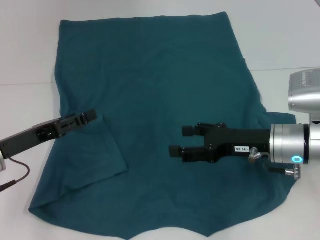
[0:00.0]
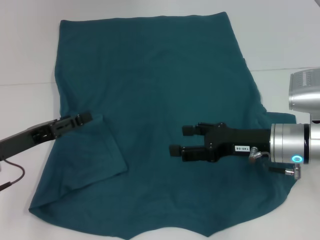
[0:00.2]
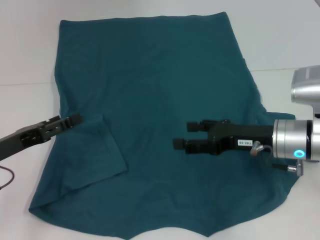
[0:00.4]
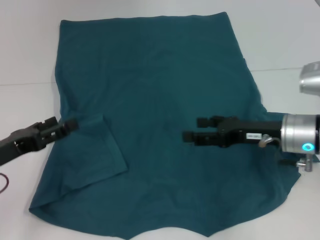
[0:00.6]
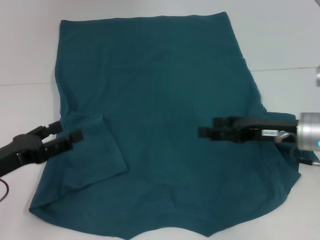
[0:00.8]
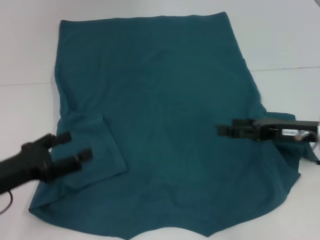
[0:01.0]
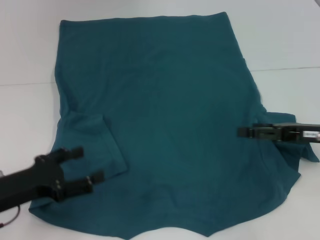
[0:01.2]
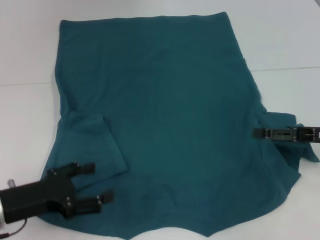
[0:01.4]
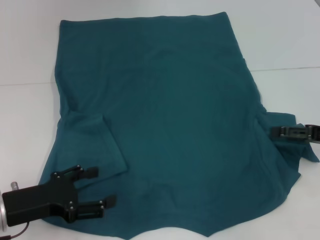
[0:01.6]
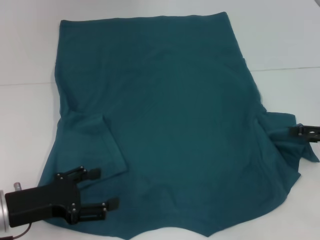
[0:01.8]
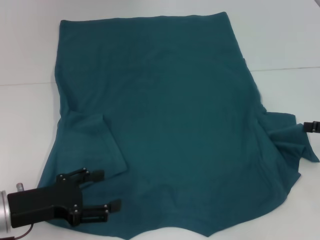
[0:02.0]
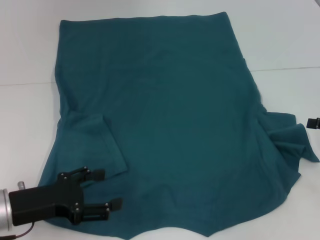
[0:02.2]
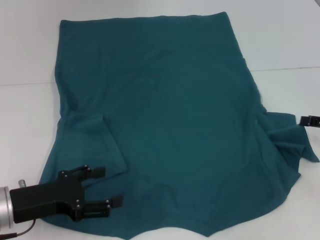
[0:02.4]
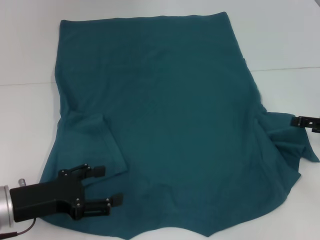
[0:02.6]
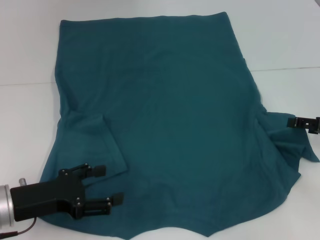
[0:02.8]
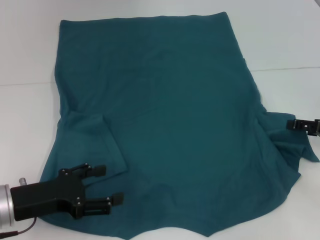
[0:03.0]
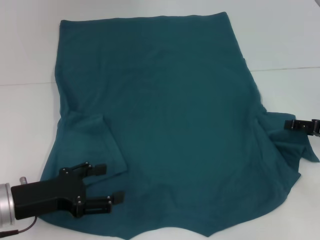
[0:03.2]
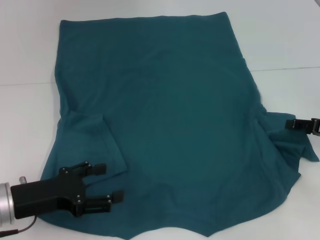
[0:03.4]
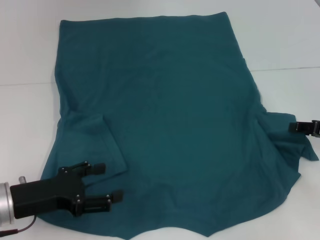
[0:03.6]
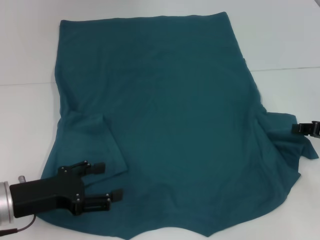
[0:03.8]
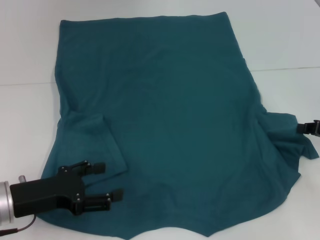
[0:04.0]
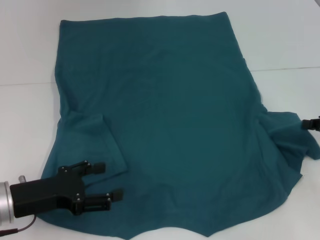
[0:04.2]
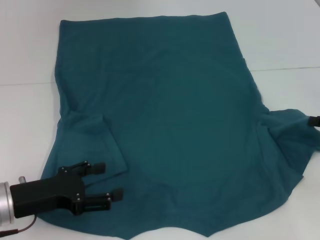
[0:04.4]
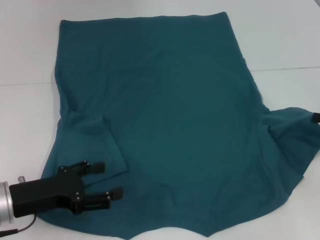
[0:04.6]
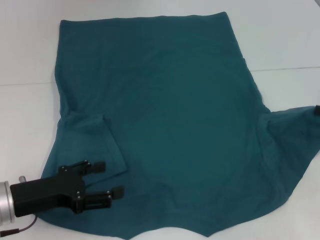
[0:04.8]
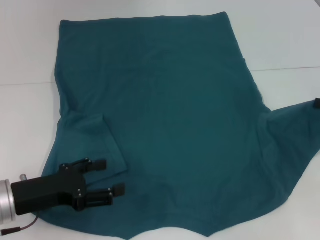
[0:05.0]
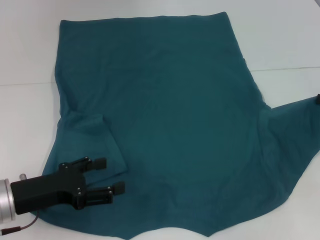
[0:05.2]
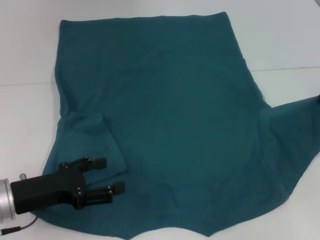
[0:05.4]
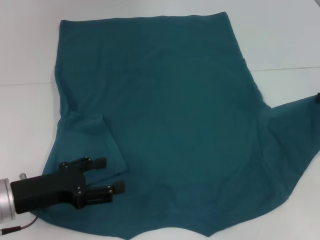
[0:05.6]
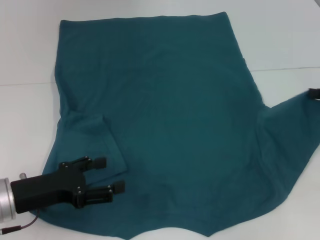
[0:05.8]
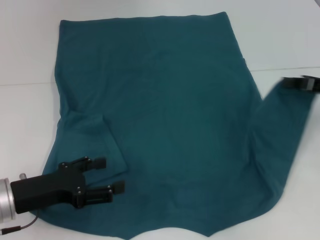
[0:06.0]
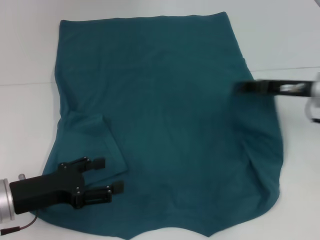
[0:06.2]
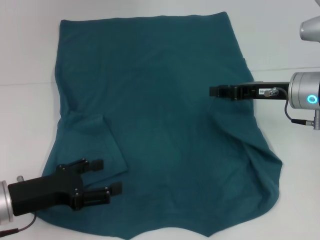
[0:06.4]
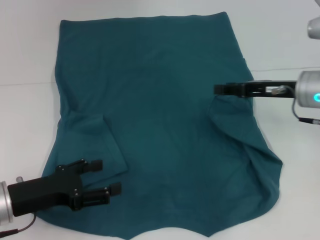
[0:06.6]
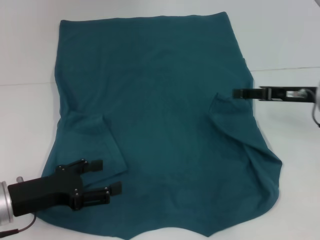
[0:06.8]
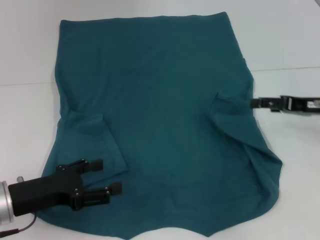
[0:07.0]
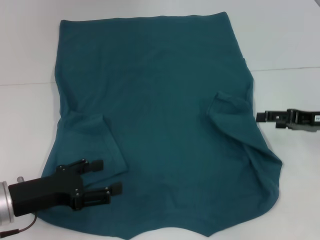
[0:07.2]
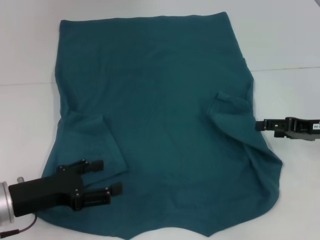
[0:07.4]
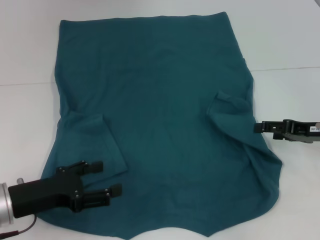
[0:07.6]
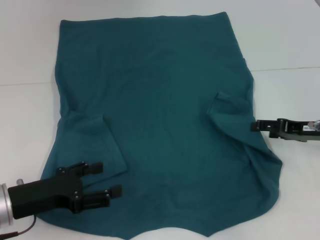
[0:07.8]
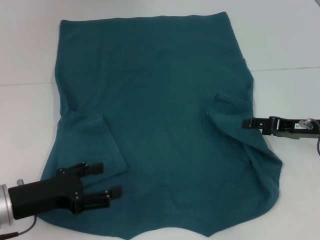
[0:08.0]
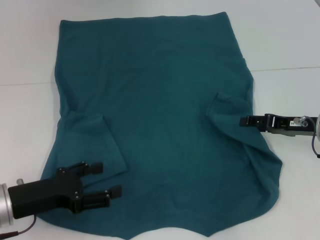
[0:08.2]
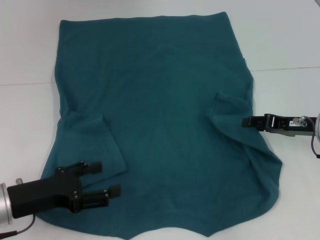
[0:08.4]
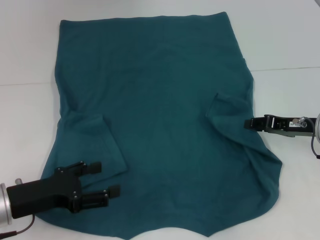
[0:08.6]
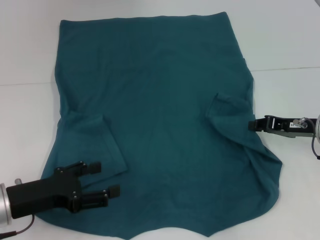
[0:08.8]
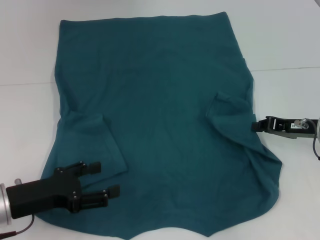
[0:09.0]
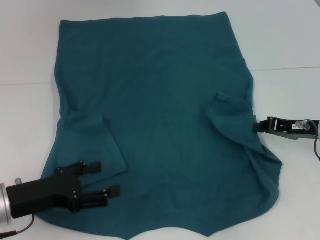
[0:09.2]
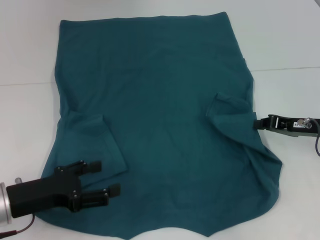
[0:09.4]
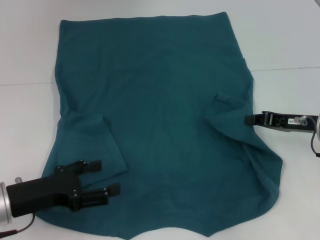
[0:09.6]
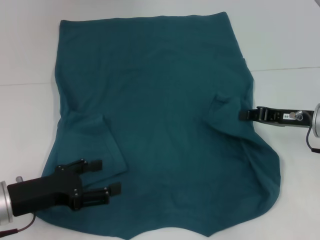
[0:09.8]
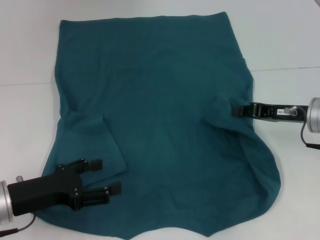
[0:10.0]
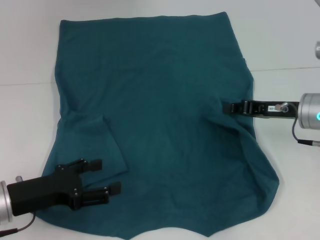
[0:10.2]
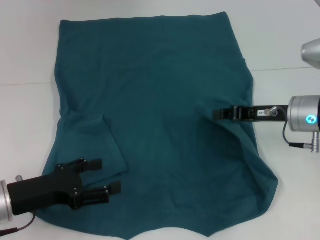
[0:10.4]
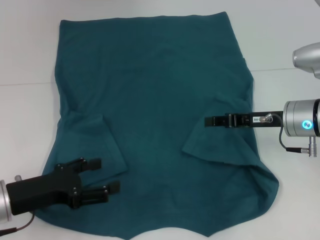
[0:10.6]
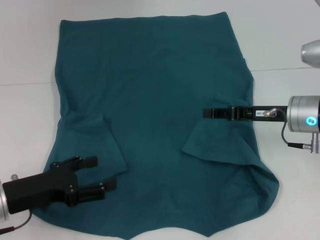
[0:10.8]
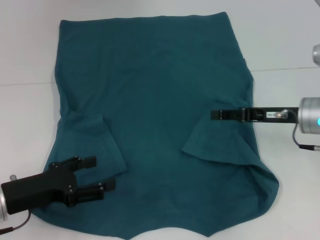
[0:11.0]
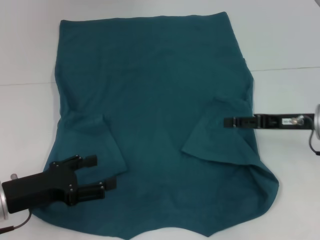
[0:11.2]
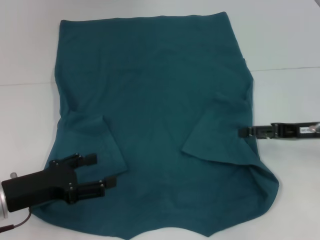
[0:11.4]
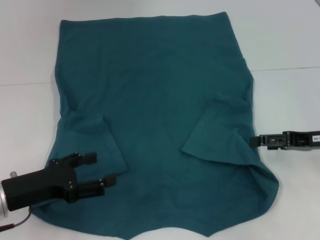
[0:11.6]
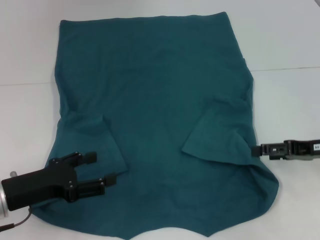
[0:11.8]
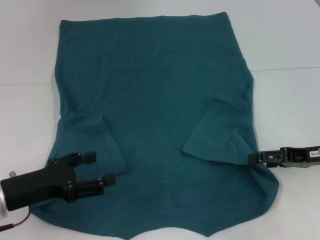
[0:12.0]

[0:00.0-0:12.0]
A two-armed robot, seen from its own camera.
Step, 0:00.2 to 0:10.6: Fold the bottom right sleeve to the right.
0:00.0 to 0:01.6: The right gripper shifts approximately 15 cm to the right, while the left gripper goes about 5 cm backward.
0:01.6 to 0:03.0: There are only small adjustments of the grippers.
0:03.0 to 0:04.4: The right gripper closes up.
0:04.4 to 0:06.0: The right gripper shifts by roughly 5 cm.
0:06.0 to 0:07.6: The right gripper moves some 10 cm to the left and comes back, and opens its fingers.
0:07.6 to 0:09.0: The right gripper closes its fingers.
0:09.0 to 0:10.4: The right gripper travels to the left by roughly 5 cm.
0:10.4 to 0:12.0: The right gripper moves to the right and backward, roughly 10 cm, and opens up.

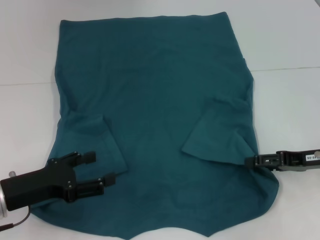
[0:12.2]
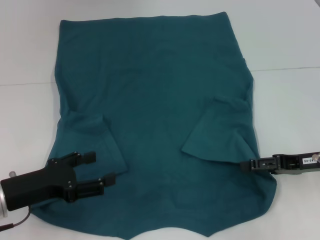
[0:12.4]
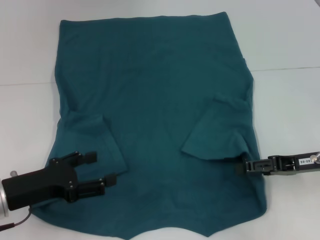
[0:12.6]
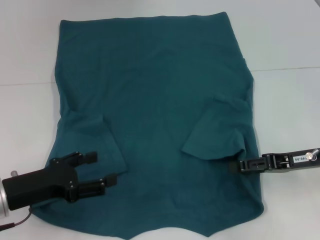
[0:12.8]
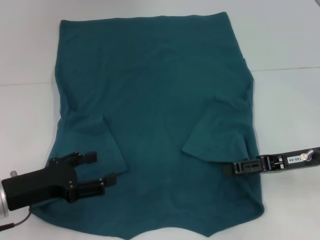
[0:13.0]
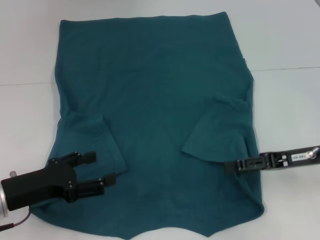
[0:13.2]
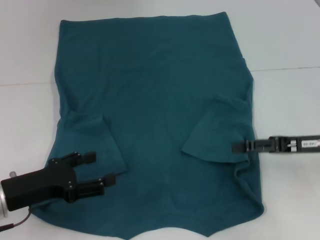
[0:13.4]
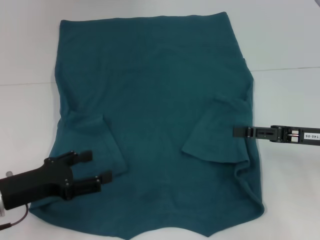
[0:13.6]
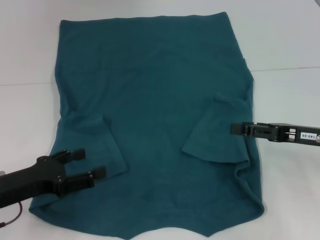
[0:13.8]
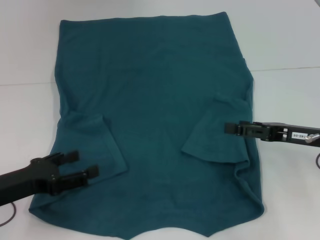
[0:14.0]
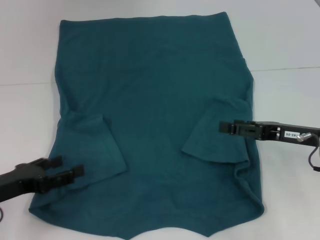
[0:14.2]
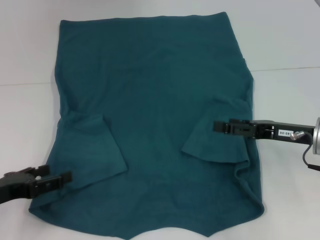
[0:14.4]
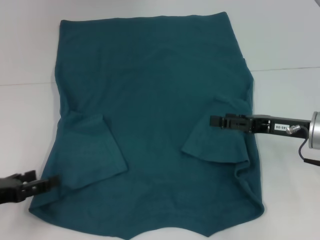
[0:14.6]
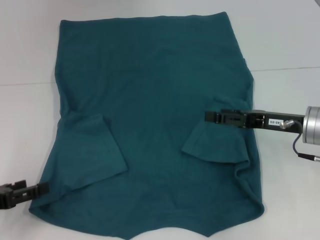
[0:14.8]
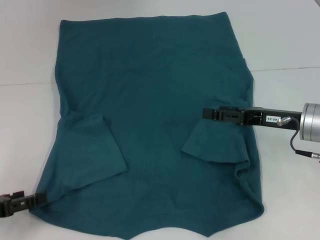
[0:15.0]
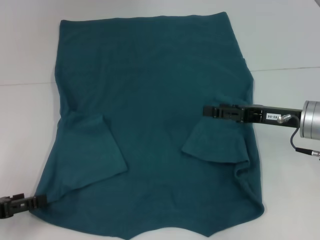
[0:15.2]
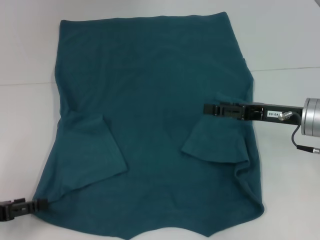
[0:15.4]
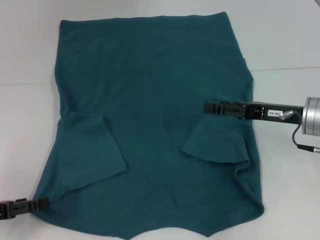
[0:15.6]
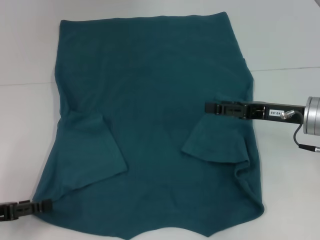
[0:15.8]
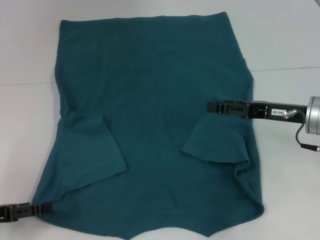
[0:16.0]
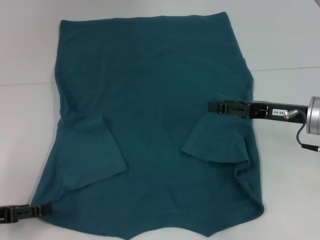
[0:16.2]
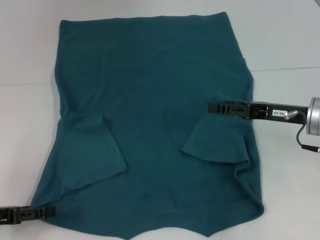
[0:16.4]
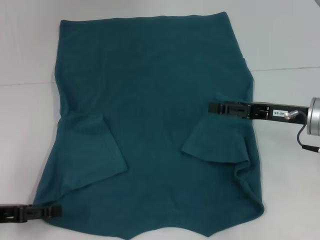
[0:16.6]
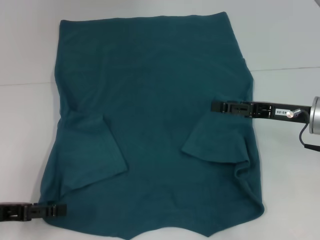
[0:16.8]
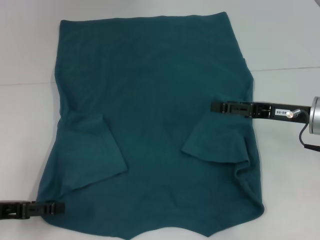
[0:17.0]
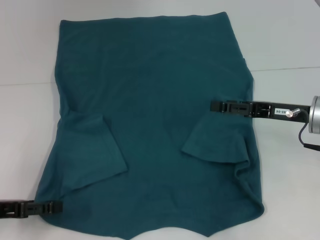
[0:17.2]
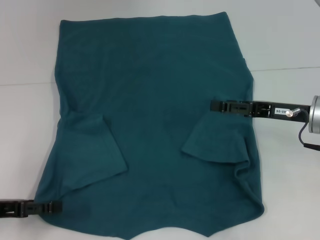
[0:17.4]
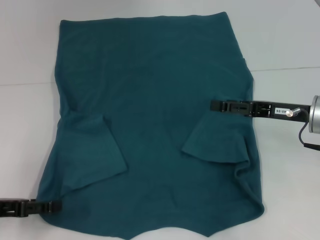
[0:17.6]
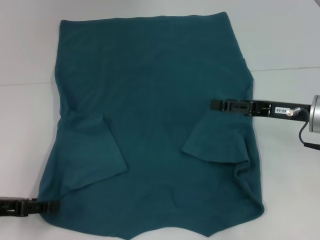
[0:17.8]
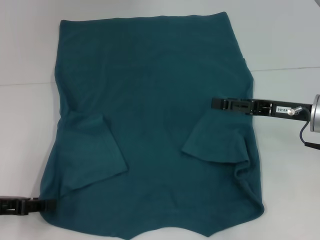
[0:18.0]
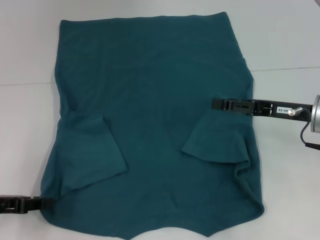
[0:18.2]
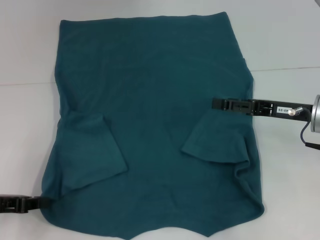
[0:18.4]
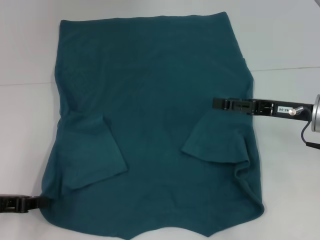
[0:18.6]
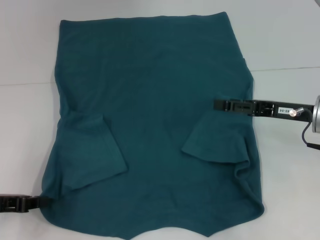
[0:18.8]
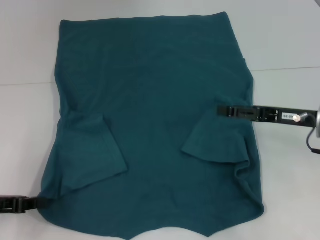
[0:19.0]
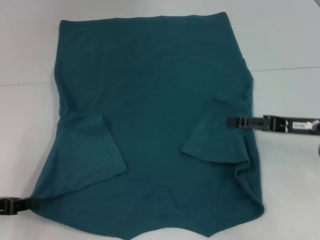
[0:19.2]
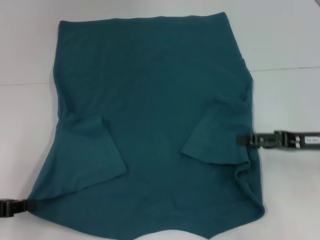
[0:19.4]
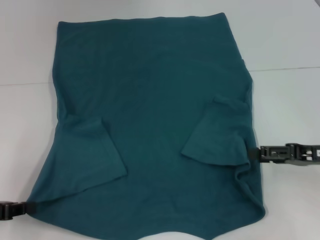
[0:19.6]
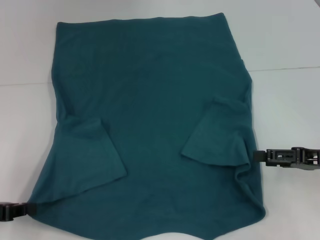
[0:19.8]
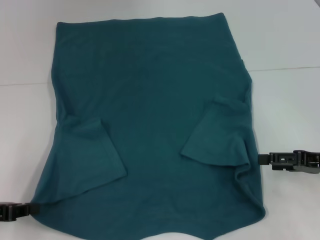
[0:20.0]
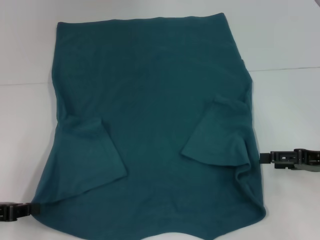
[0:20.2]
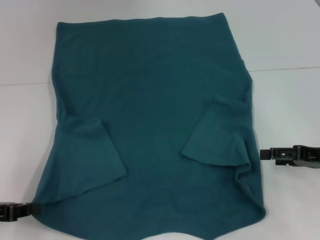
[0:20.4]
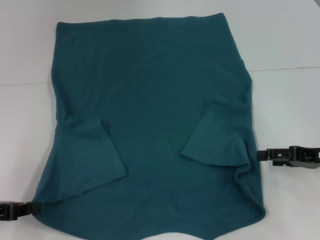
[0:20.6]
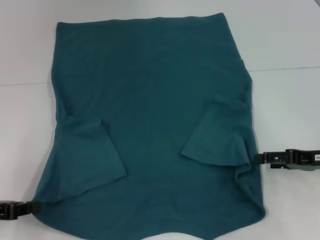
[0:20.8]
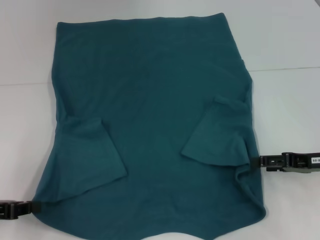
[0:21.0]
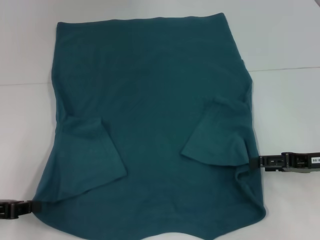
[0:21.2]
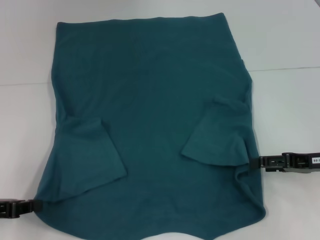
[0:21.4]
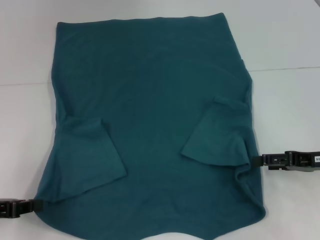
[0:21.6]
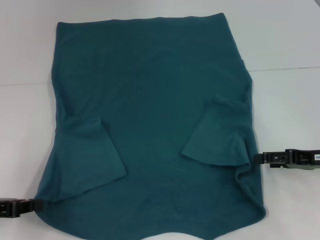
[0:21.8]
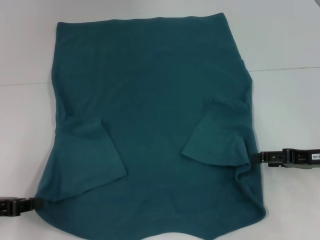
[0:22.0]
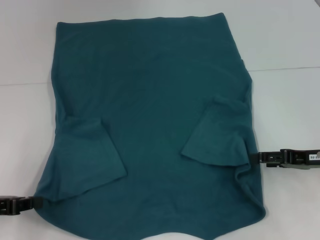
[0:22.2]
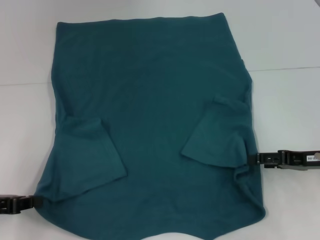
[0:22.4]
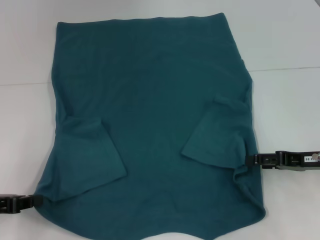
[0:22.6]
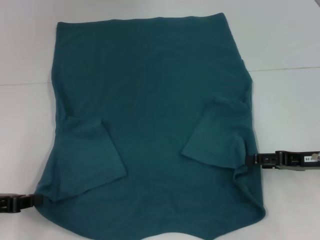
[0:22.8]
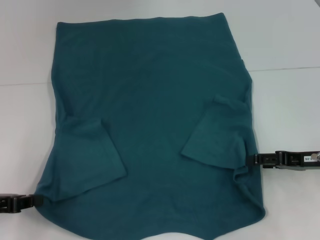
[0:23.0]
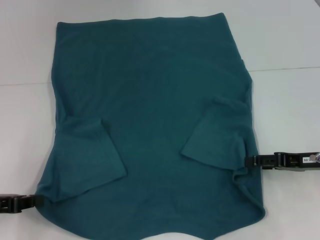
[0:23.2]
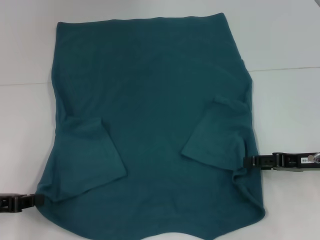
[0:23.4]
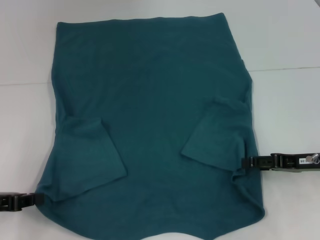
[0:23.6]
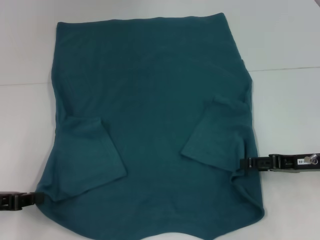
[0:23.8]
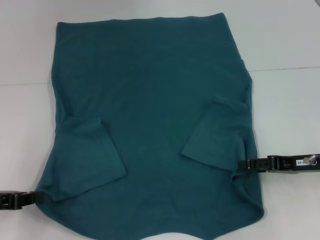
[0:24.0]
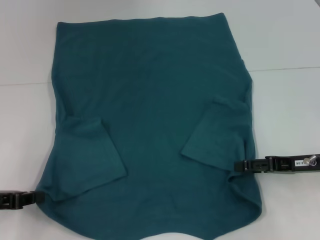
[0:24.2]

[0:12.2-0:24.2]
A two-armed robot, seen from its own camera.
Step, 0:12.2 to 0:18.8: Grab the bottom left corner with your left hand.
0:13.8 to 0:15.2: The left gripper moves to the left, roughly 5 cm. The right gripper ends up roughly 5 cm from where it was.
0:15.2 to 0:16.6: The grippers make only small movements.
0:16.6 to 0:18.2: The left gripper closes its fingers.
0:18.2 to 0:19.8: The left gripper closes. Meanwhile the right gripper moves to the right and backward, roughly 10 cm.
0:19.8 to 0:21.2: The grippers stay close to where they were, moving slightly.
0:21.2 to 0:22.6: Neither gripper changes place.
0:22.6 to 0:24.2: The grippers make only small movements.
